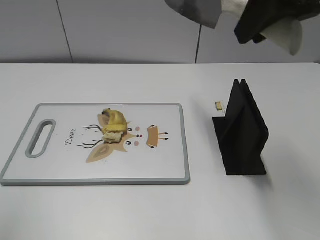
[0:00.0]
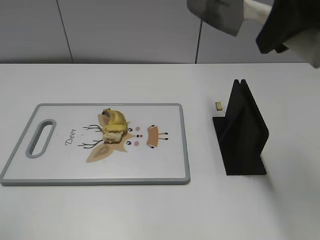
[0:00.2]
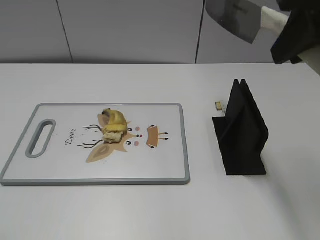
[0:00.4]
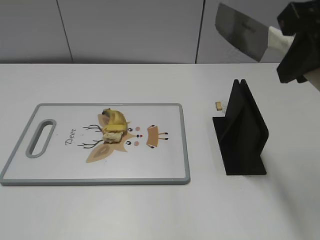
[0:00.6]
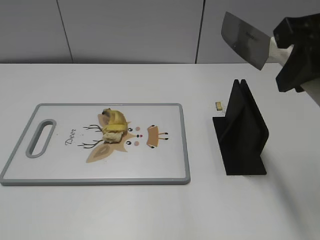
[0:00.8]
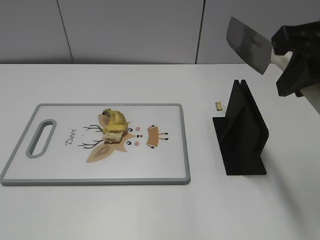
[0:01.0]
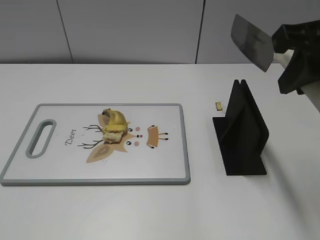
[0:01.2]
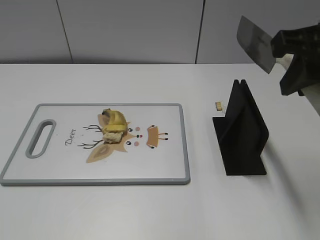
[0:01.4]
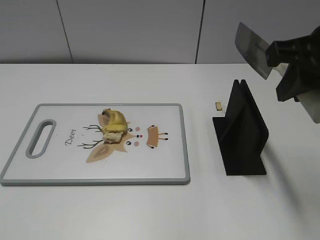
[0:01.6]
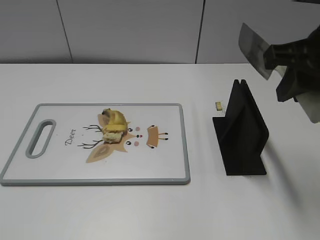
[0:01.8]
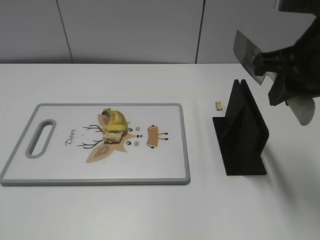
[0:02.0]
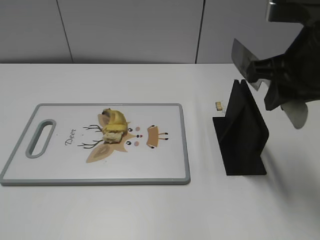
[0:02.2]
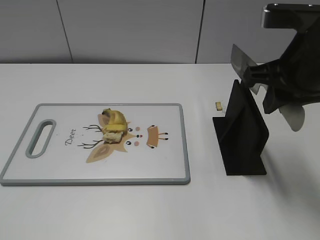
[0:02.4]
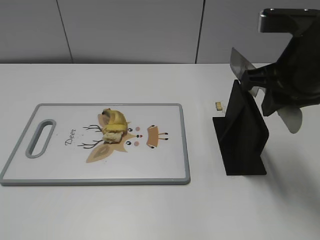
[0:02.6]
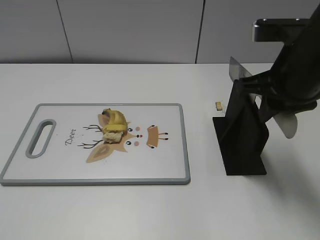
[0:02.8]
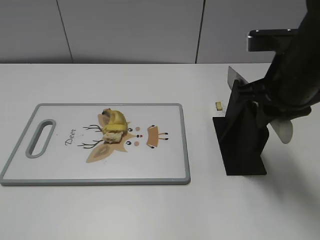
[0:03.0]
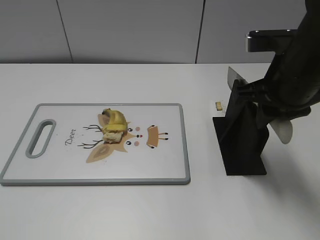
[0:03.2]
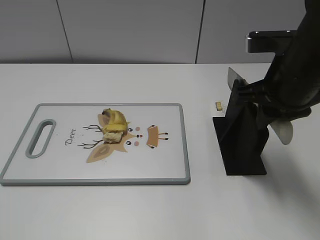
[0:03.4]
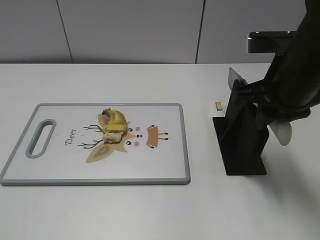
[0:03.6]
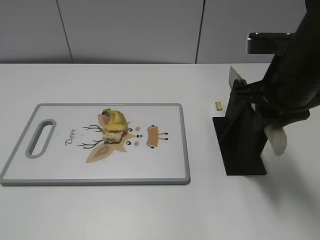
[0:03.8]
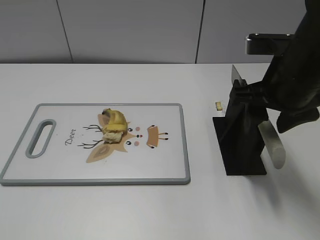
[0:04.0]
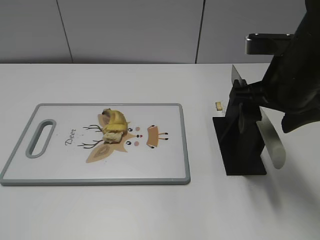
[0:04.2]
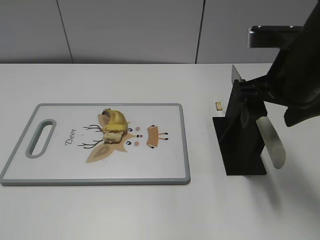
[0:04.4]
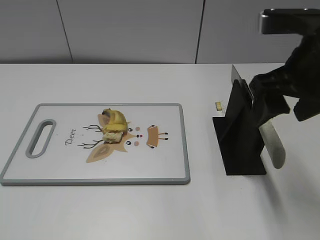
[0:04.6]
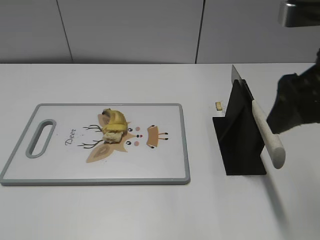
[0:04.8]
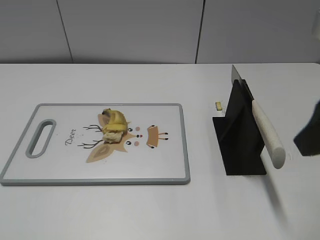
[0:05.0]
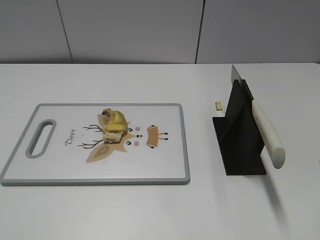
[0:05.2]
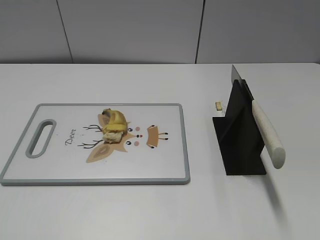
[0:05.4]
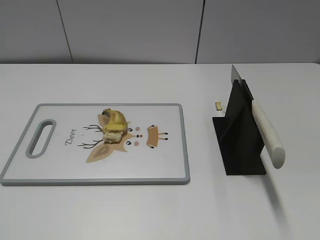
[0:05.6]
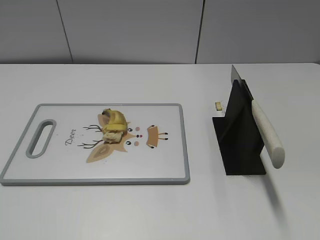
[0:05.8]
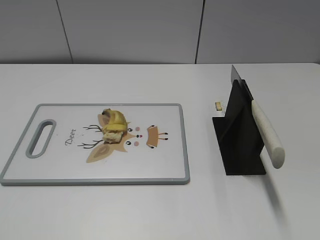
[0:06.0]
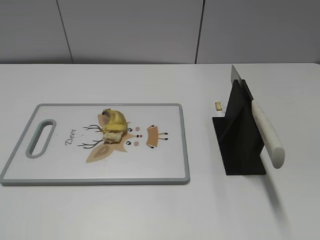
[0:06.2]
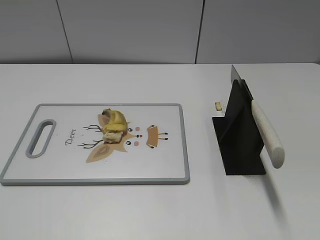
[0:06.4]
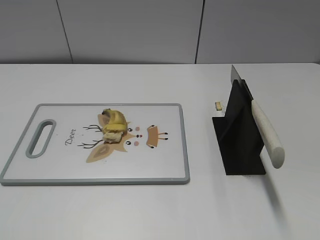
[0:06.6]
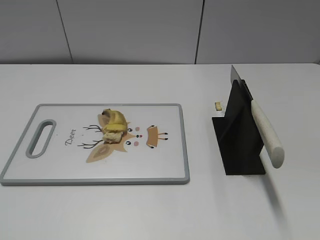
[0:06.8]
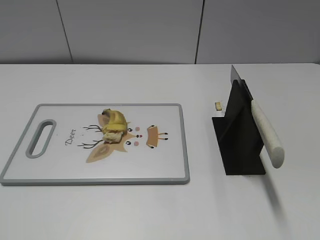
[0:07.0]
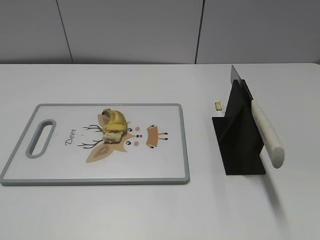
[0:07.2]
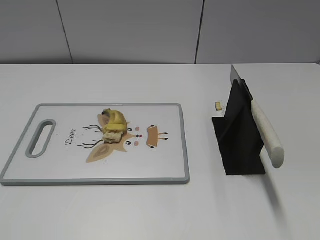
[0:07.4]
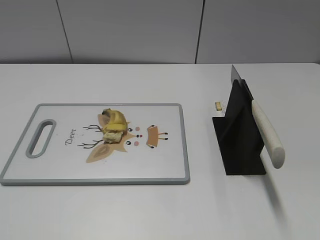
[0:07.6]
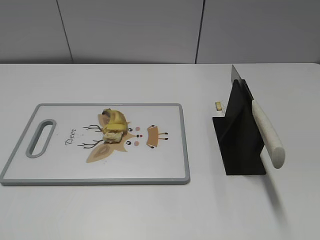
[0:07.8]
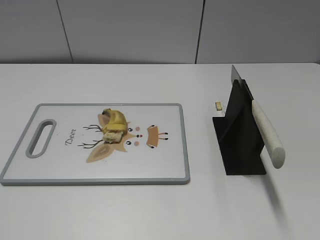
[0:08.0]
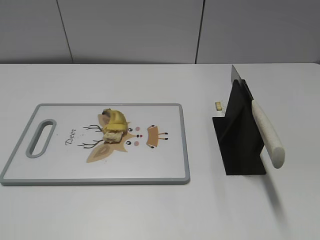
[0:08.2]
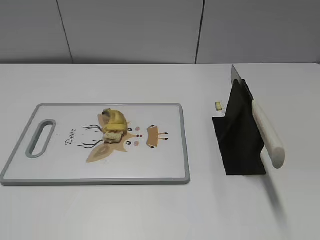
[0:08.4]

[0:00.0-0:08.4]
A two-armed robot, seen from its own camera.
Task of the whole recording: cut banana.
Step, 0:00.0 to 0:03.6: Lift the knife with your right hand.
Step, 0:03.8 to 0:08.4: Place the knife on the storage rack with your right hand.
0:00.0 to 0:01.4: The right gripper goes some 5 cm downward. Meanwhile the left gripper heads downward and backward, covering about 20 cm.
0:01.4 to 0:02.8: The right gripper heads downward, covering roughly 5 cm.
0:02.8 to 0:04.2: The right gripper opens.
0:04.2 to 0:05.6: The right gripper goes some 20 cm backward and to the right.

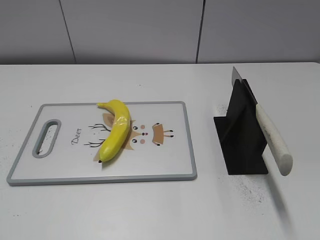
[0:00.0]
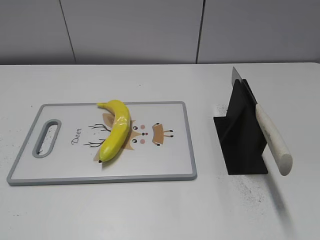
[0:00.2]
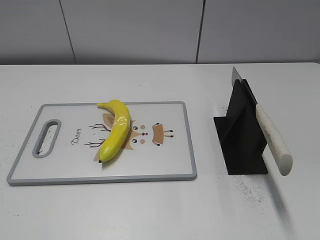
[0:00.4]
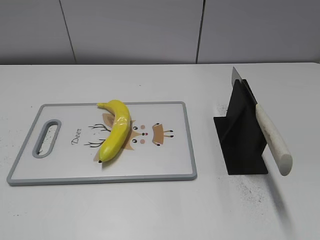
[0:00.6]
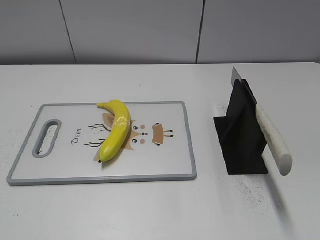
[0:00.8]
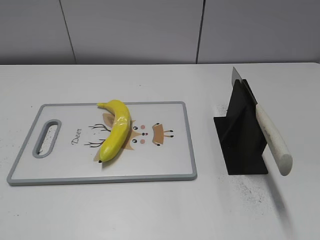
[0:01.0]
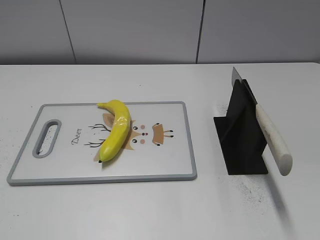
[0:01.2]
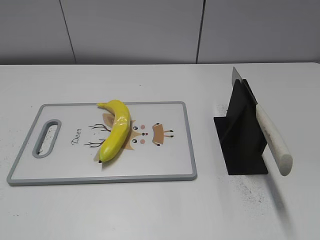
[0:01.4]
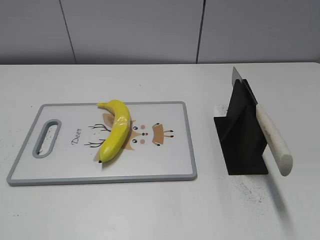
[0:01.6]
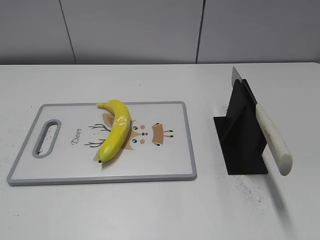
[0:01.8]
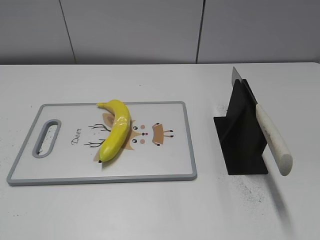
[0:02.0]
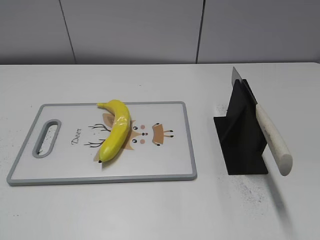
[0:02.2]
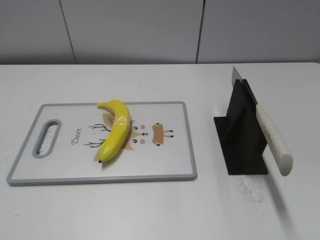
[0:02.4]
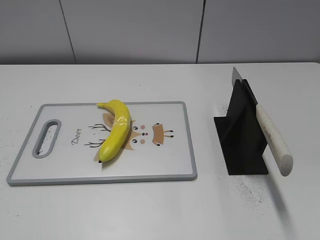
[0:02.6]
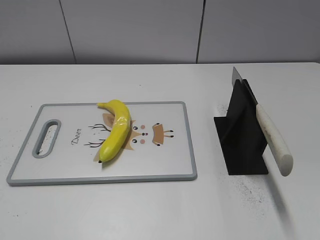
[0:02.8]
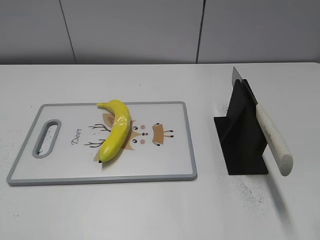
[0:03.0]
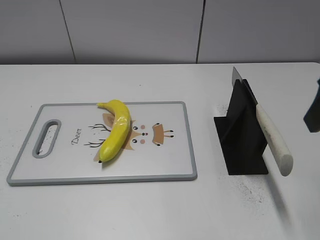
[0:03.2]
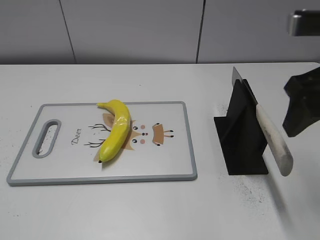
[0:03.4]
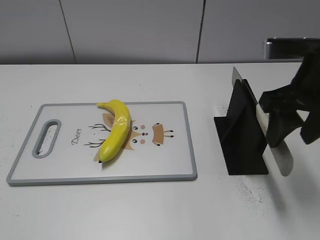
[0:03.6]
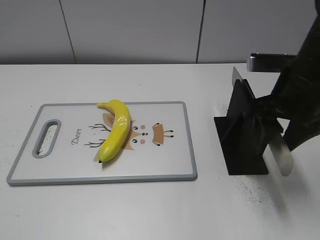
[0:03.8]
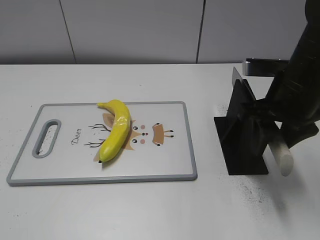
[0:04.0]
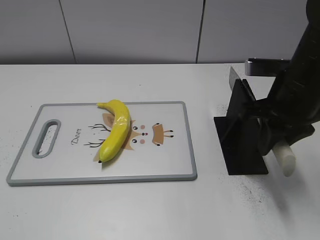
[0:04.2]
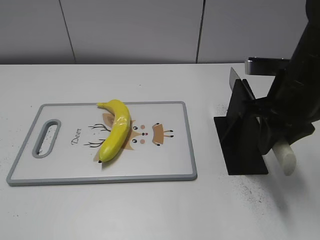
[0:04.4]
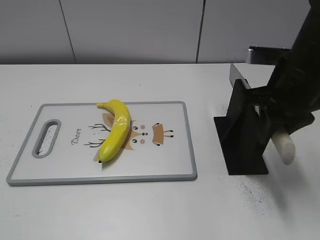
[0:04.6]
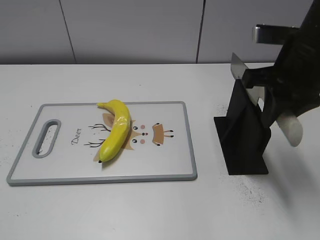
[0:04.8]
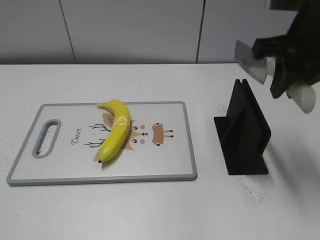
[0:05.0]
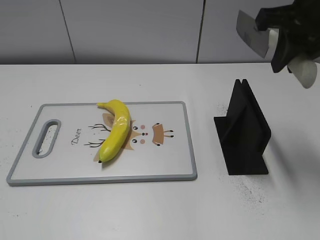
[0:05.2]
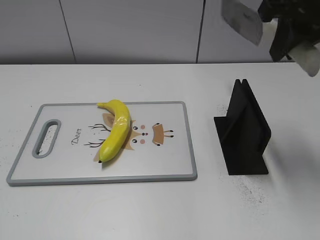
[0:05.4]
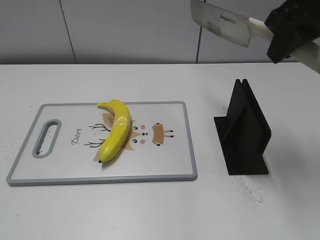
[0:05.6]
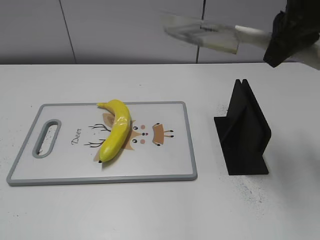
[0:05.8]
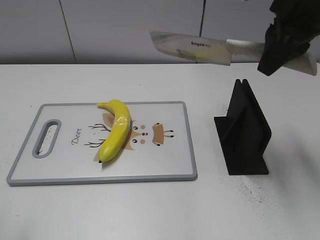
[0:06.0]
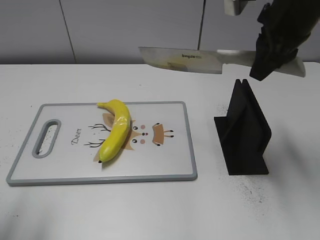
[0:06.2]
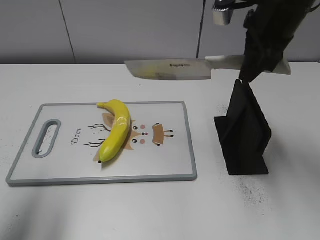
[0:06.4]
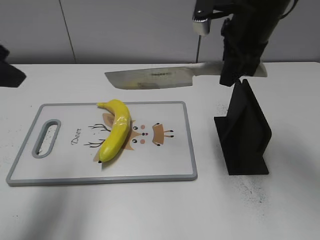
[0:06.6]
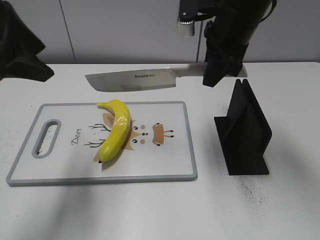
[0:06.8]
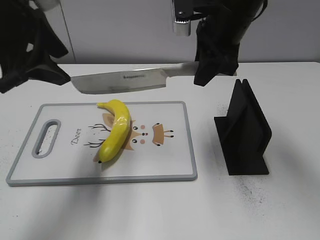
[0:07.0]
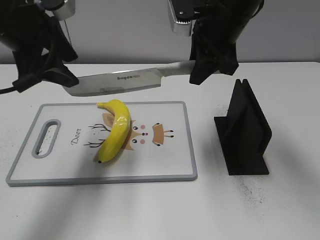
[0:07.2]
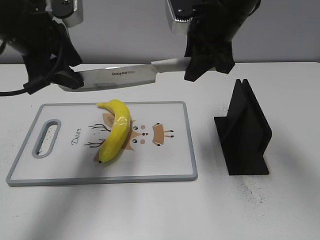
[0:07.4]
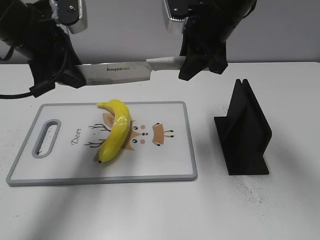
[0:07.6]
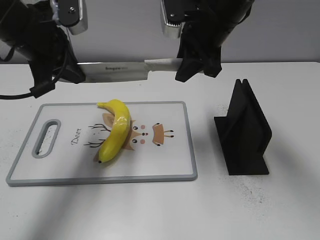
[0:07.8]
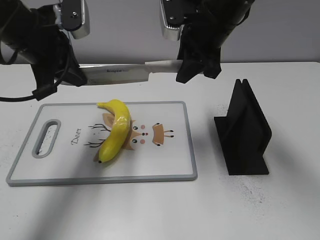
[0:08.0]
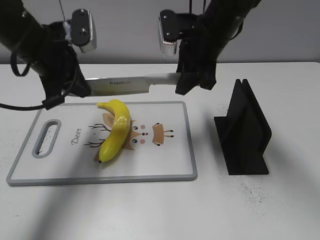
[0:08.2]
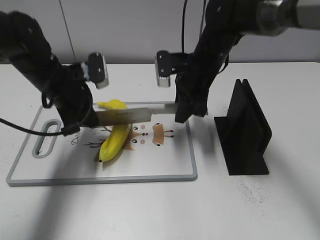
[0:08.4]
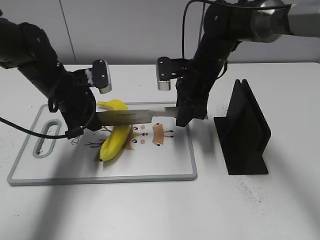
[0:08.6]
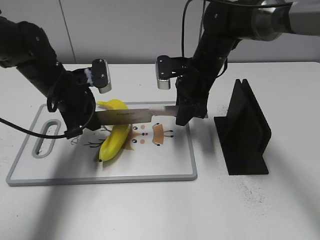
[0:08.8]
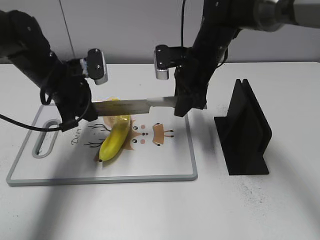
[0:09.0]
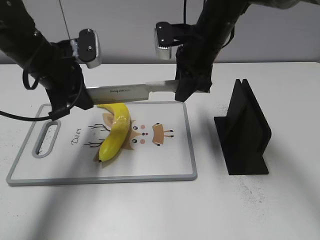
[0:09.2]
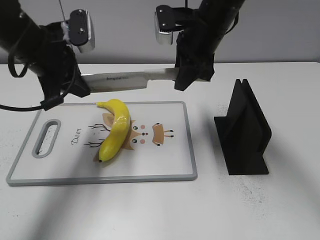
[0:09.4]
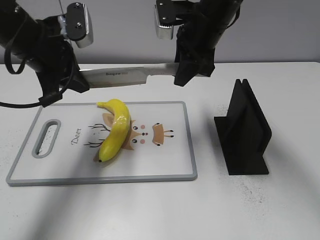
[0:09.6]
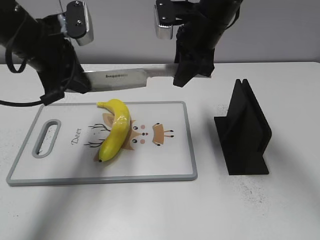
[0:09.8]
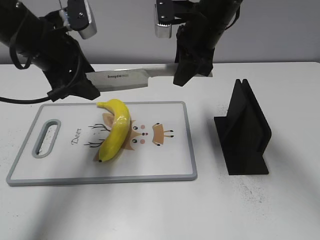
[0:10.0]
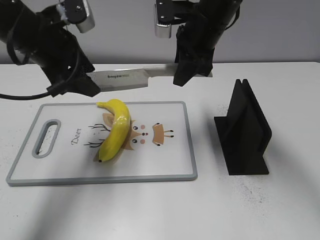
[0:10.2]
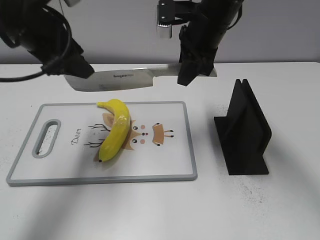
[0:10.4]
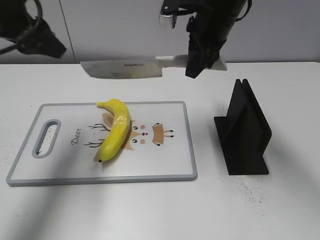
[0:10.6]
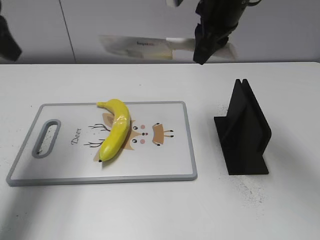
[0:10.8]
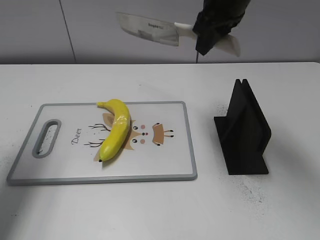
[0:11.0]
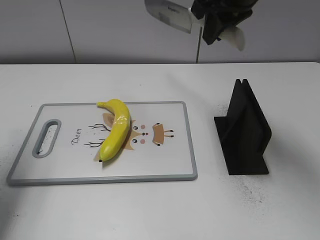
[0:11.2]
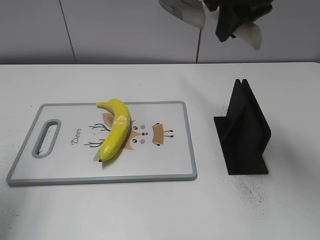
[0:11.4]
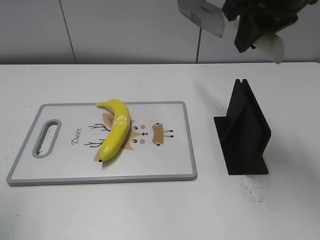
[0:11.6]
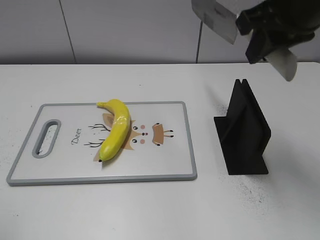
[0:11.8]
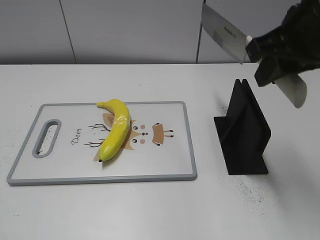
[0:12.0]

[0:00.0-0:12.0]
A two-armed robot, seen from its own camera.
Task of the whole recording: cut plastic banana.
Step, 0:00.0 to 0:05.2: Grab the knife handle with your right hand.
Step, 0:05.4 to 0:09.4: Lift the knife with your right hand.
Step, 0:09.8 to 0:10.8: Cut the banana with your right hand.
0:03.0 to 0:04.4: The right gripper shifts about 20 cm forward, downward and to the left, and closes its fingers.
0:04.4 to 0:06.0: The right gripper moves upward, approximately 10 cm.
0:06.0 to 0:07.6: The left gripper is displaced forward and to the right by approximately 30 cm. Meanwhile the right gripper moves to the left, forward and downward, approximately 10 cm.
0:07.6 to 0:09.0: Both grippers move downward, roughly 10 cm. The left gripper closes its fingers.
0:09.0 to 0:10.4: The grippers both shift upward by some 10 cm. The left gripper opens its fingers.
0:10.4 to 0:12.0: The right gripper heads backward, to the right and upward, covering roughly 20 cm, while the left gripper heads backward and to the left, covering approximately 30 cm.

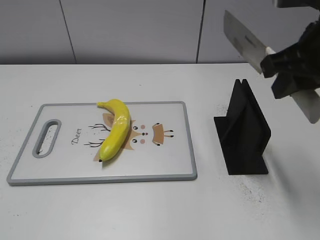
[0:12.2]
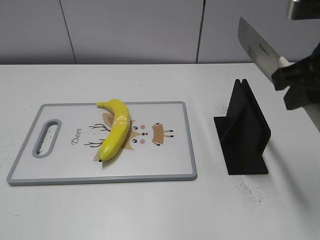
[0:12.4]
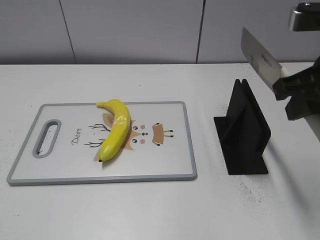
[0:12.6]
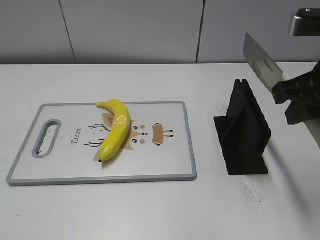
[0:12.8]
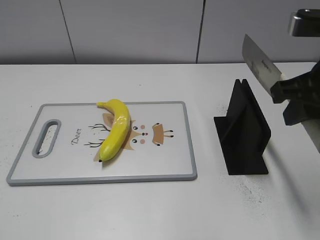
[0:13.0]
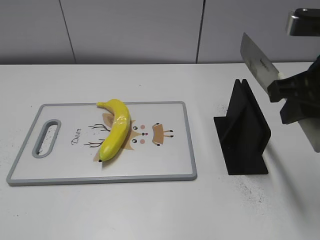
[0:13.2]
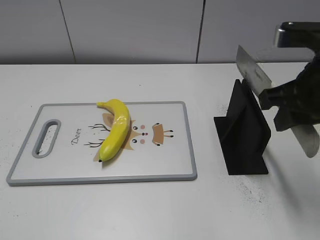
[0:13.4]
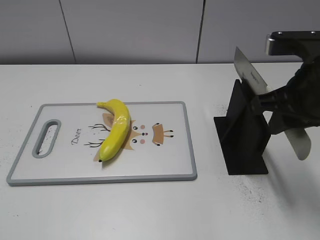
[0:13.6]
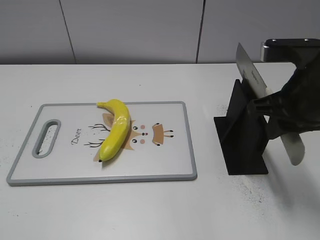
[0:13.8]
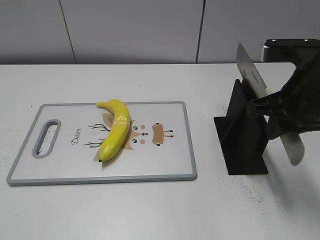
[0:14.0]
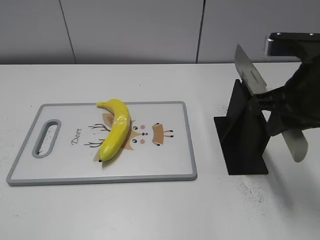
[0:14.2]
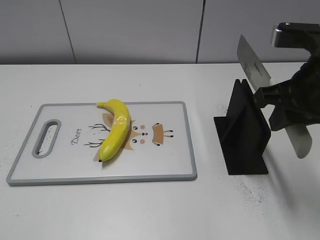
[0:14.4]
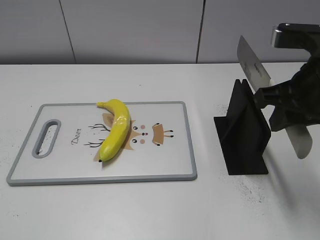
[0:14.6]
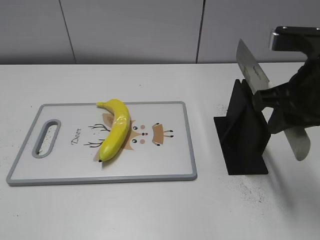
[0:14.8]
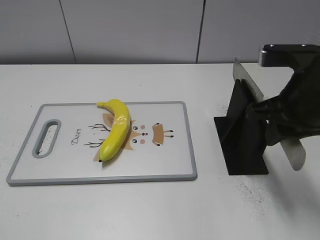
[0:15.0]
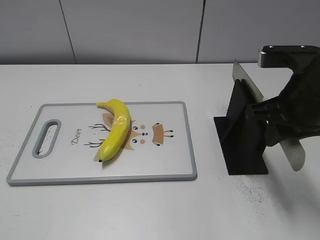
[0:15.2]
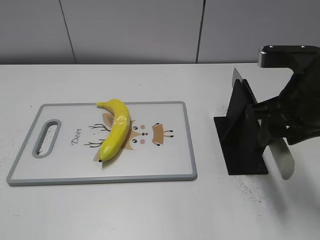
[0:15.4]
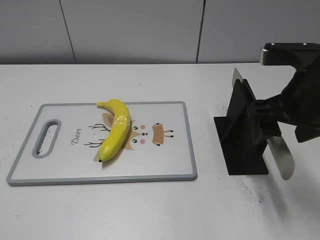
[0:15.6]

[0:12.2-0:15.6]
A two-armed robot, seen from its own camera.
Task of the whole recording: cut plastic banana.
0:12.2 to 0:13.8: The right gripper is displaced downward by roughly 5 cm.
0:13.8 to 0:15.6: The right gripper opens up.
